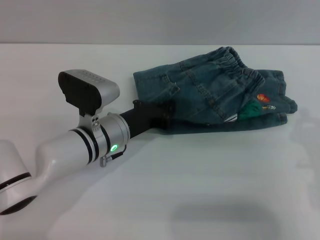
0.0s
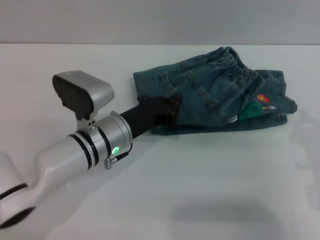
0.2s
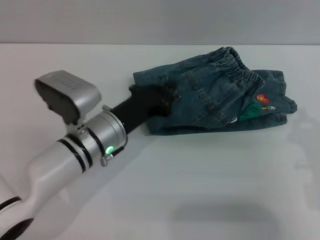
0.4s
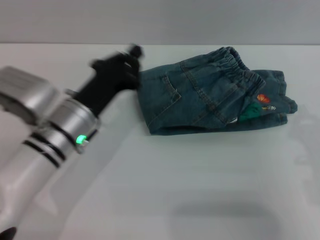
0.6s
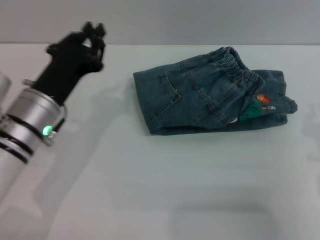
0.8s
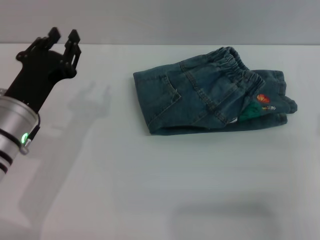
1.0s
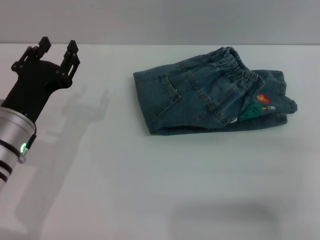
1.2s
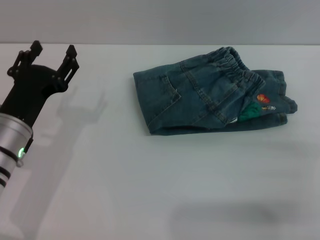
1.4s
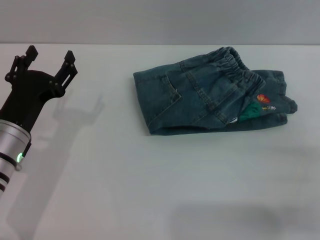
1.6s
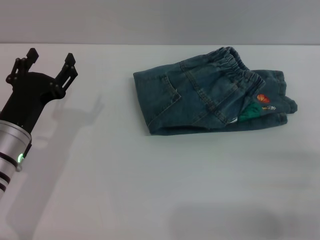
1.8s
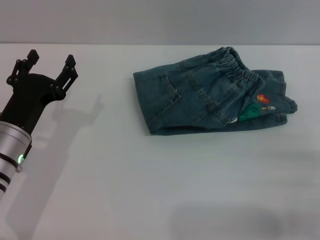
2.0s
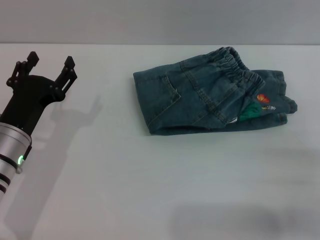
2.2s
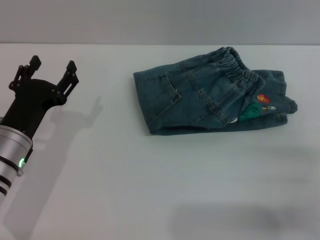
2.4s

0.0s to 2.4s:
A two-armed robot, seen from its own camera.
0.0s to 1.2s: The left gripper heads to the left, backward and upward, covering approximately 15 cm, and opens. Meanwhile the right gripper opens up.
1.2s to 2.4s: The right gripper opens. The left gripper opens up.

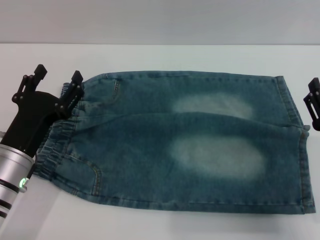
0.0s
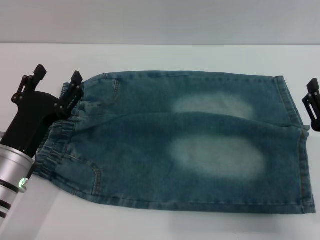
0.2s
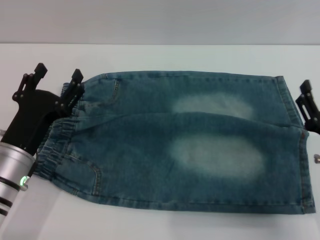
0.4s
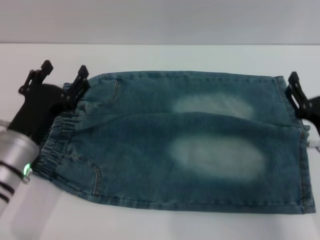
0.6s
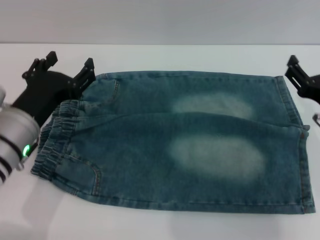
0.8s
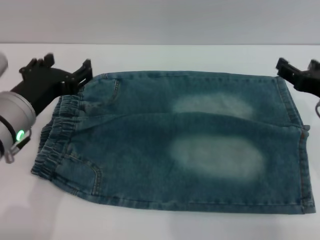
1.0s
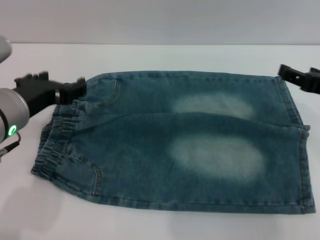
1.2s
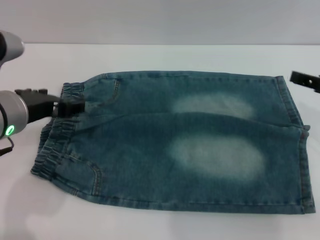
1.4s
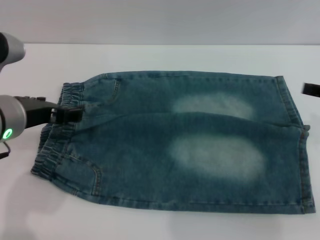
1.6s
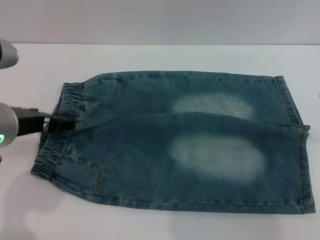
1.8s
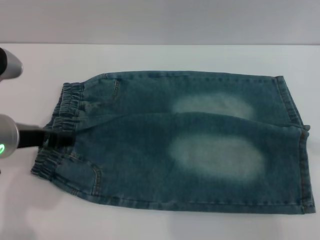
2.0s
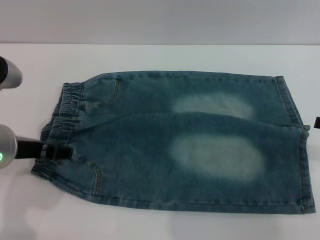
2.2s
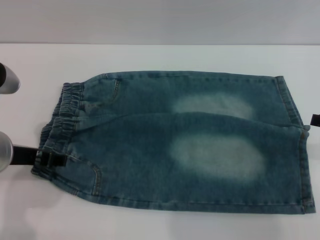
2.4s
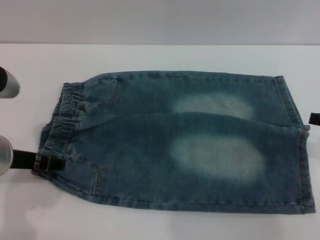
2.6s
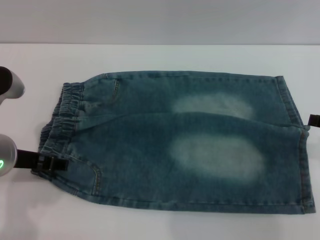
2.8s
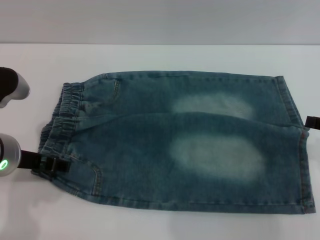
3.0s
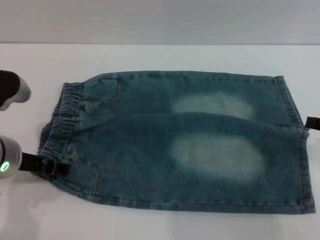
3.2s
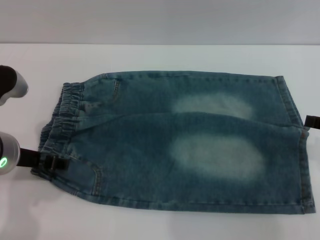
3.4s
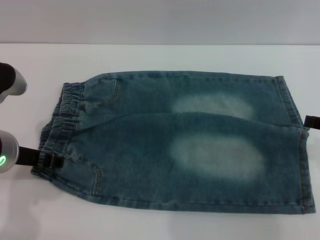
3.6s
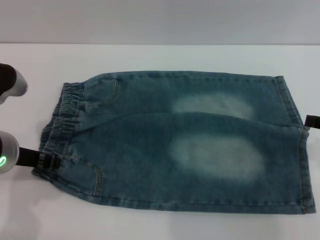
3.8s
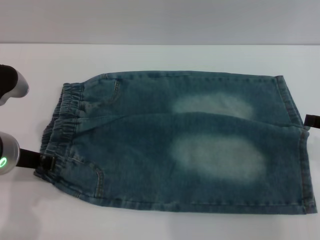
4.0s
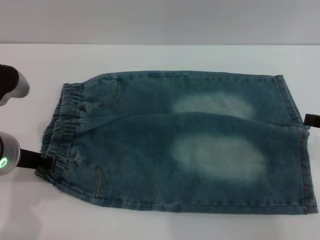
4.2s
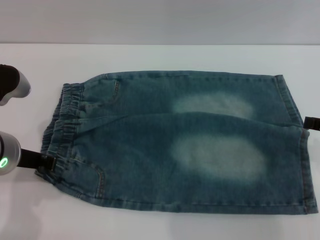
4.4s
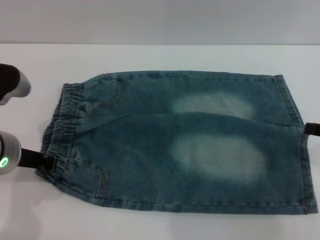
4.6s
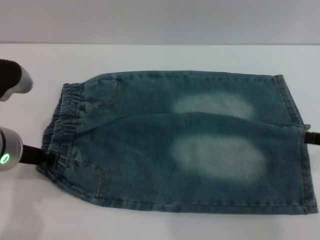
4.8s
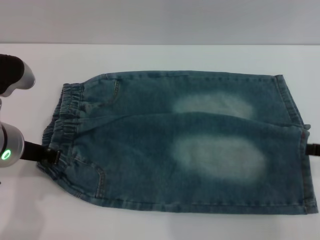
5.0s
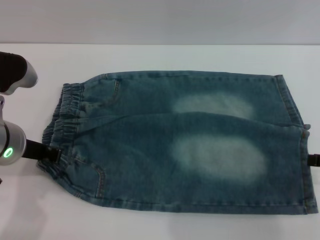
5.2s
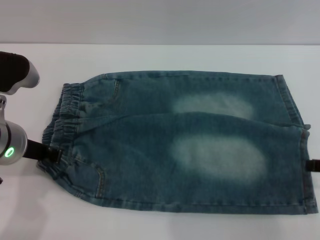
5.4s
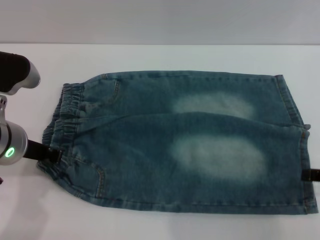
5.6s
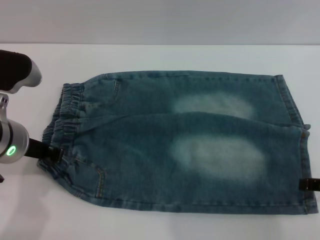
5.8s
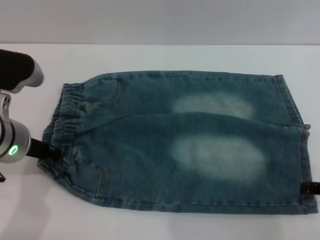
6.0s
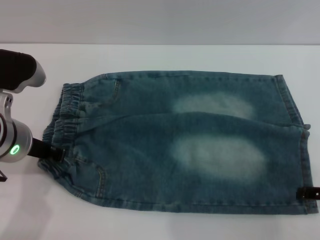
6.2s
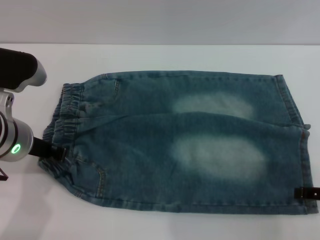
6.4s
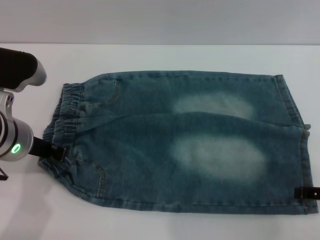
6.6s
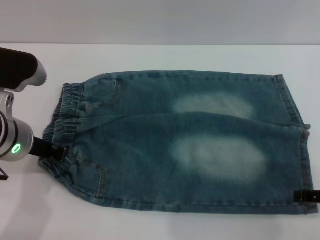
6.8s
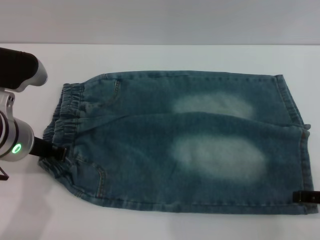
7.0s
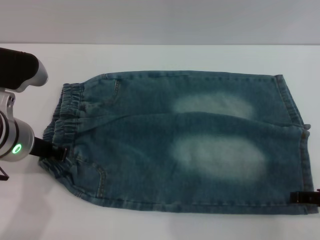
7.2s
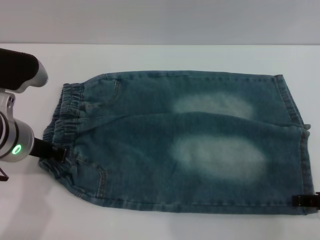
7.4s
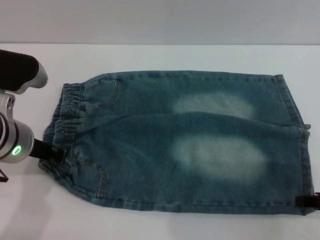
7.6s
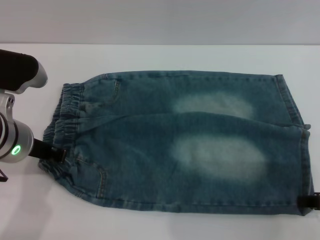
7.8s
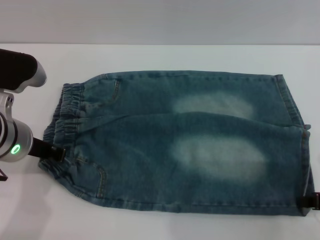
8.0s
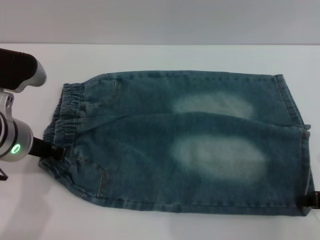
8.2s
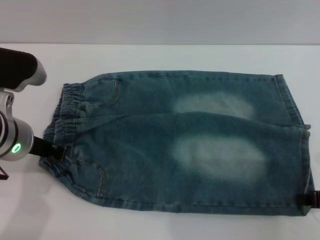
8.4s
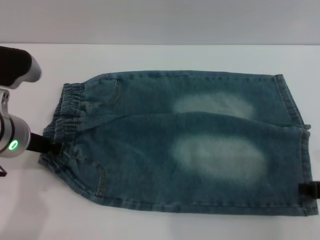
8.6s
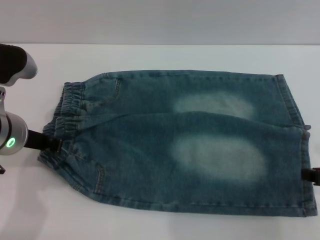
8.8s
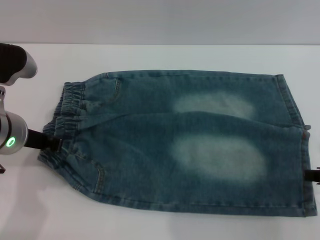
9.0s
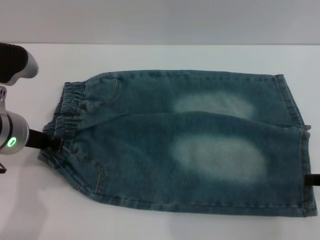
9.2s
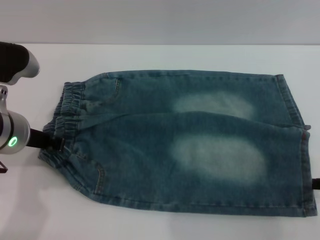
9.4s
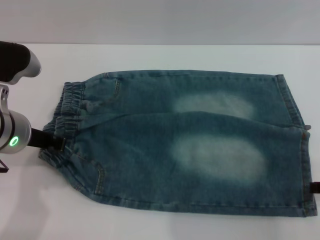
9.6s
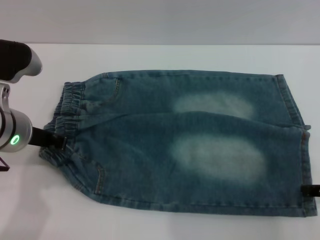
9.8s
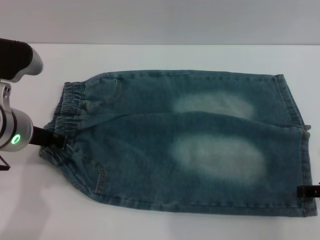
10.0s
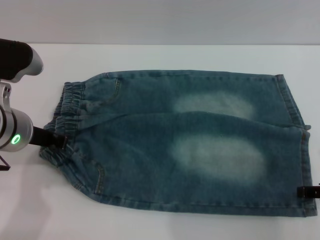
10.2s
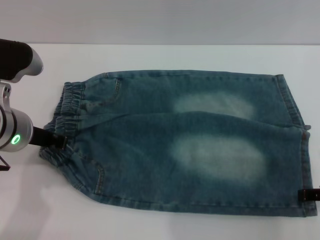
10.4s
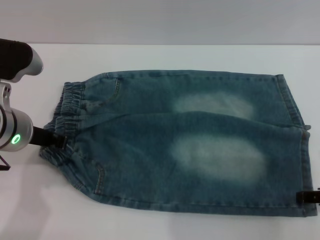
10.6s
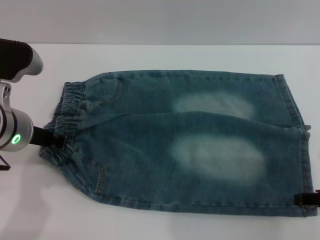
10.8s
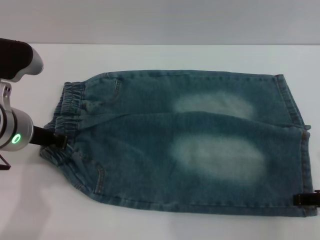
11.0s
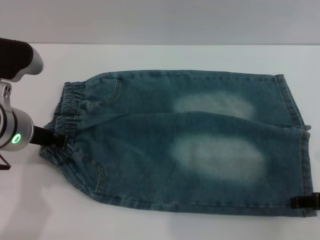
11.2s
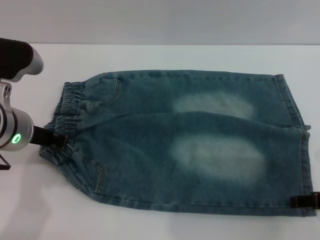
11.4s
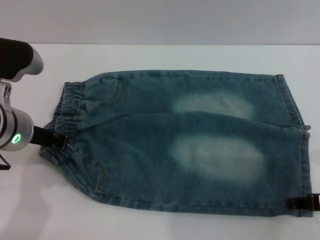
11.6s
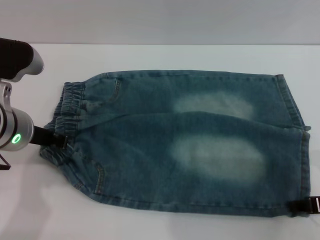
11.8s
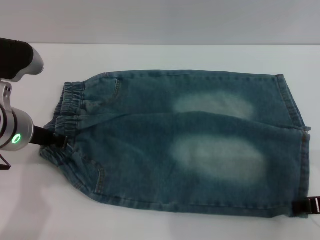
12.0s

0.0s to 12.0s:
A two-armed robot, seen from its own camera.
0.0s to 1.6s: The right gripper heads upward, forward and to the right, covering roughly 15 cm, while the left gripper shifts about 10 cm upward.
3.0s to 4.4s: The left gripper closes up.
4.4s to 7.6s: The grippers make only small movements.
7.6s to 9.0s: The right gripper closes up.
10.4s to 12.0s: The grippers move only a little.

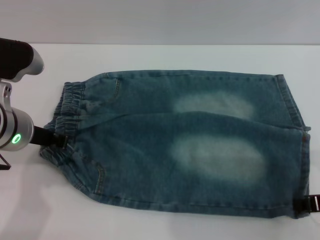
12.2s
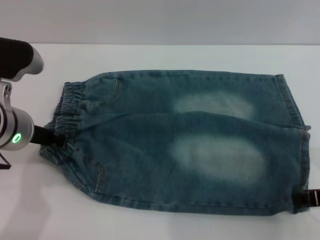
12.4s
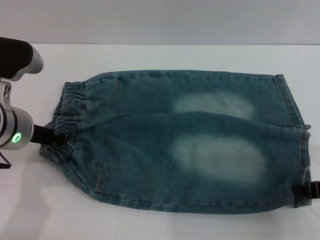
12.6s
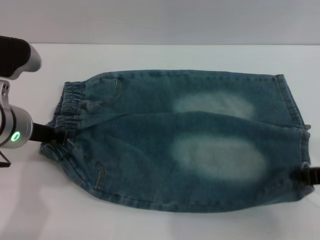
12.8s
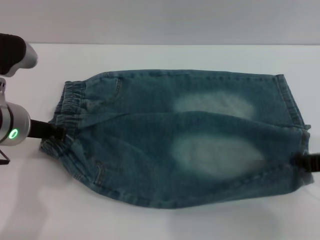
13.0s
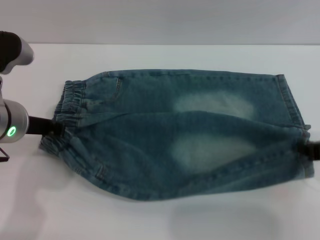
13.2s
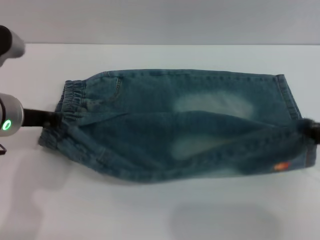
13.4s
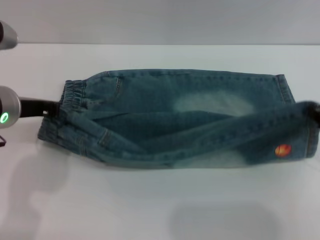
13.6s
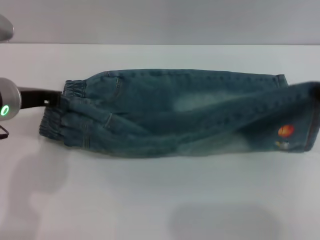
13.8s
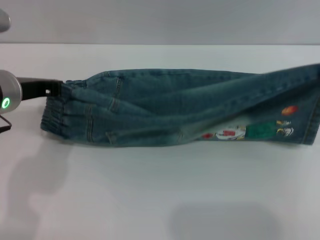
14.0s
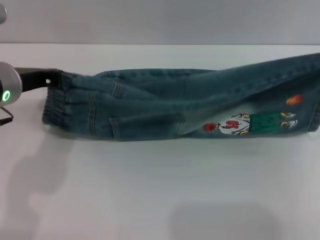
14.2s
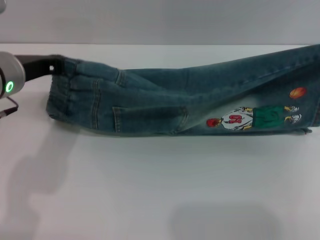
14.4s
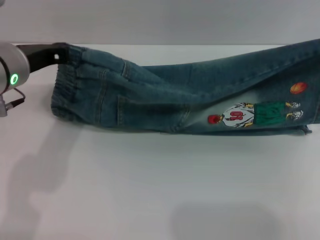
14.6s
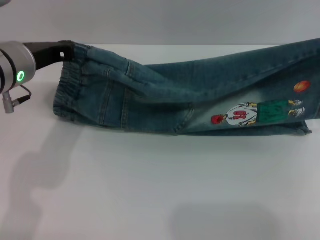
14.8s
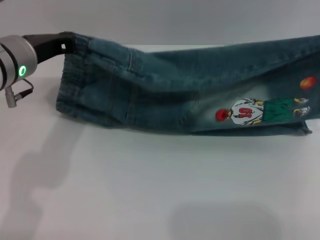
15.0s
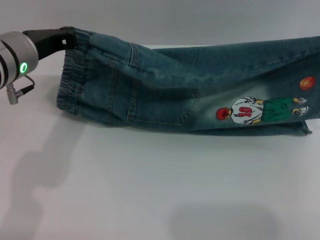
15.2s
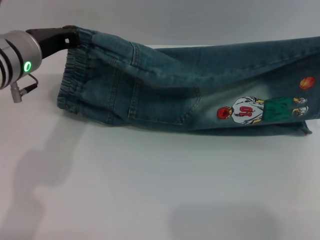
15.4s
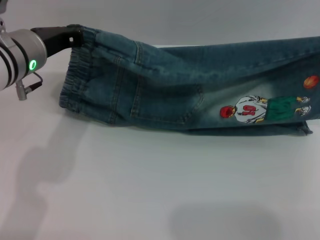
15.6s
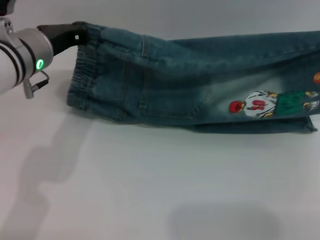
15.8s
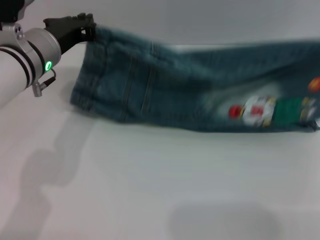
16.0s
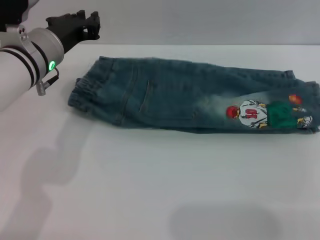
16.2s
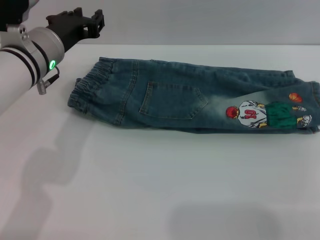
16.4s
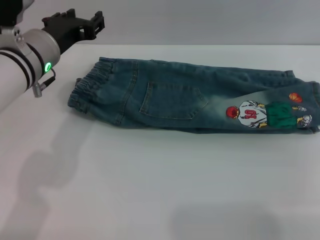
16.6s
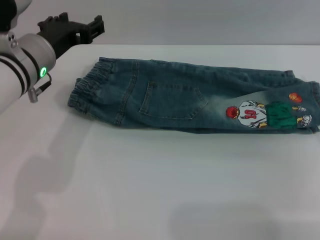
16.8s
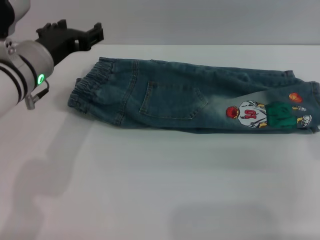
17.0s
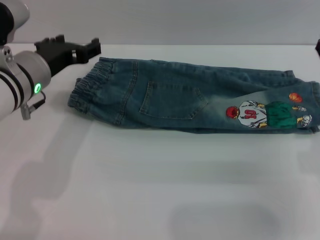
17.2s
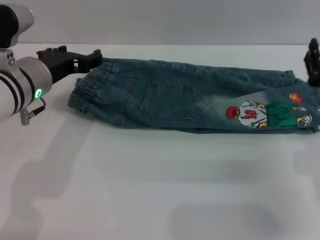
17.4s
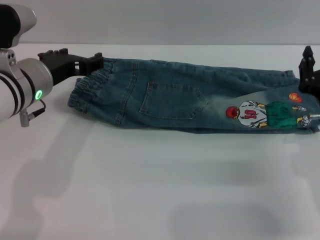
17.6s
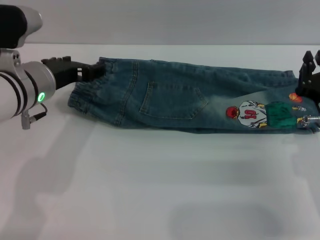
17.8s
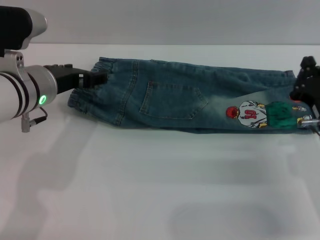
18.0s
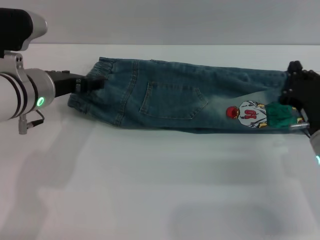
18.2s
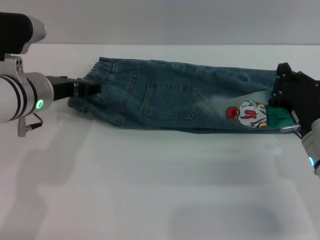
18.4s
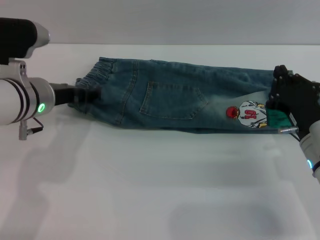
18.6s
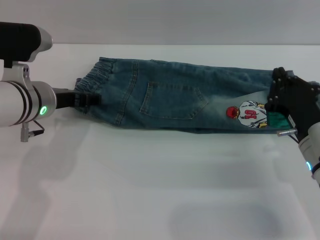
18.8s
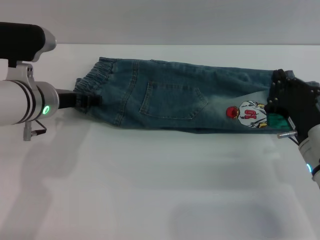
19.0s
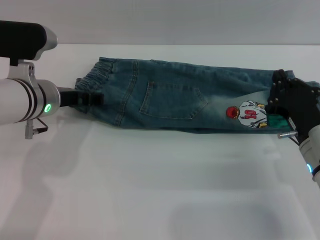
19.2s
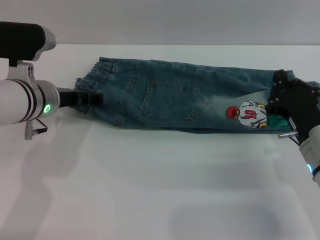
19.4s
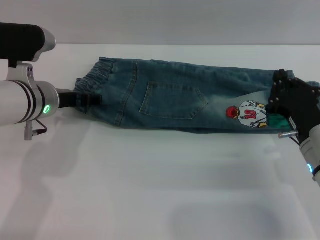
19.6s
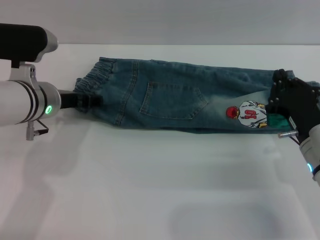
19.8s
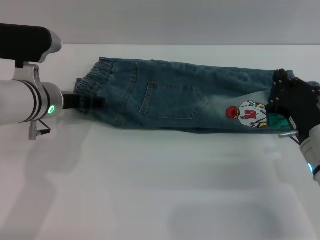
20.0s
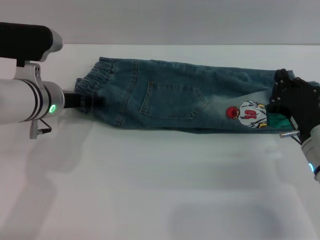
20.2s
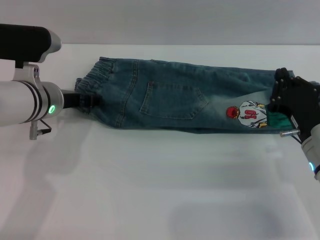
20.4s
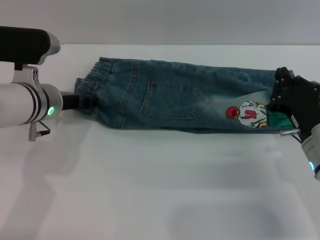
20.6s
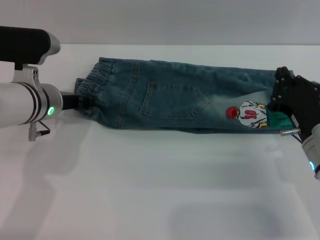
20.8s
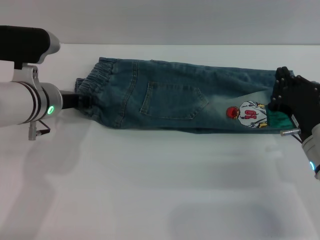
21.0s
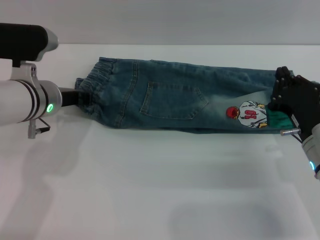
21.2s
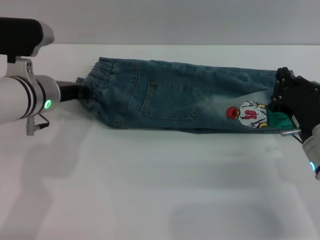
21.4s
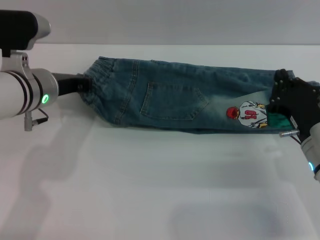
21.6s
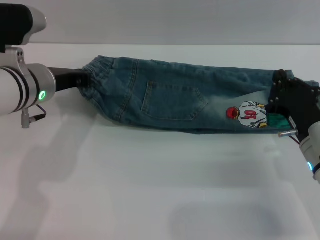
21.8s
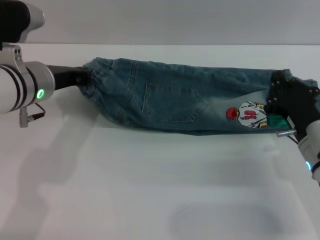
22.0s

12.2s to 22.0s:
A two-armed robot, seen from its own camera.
Step, 12.2s to 18.8s: Fold the bottom of the pants upward with both grippers.
12.2s to 13.6s: The right gripper is displaced upward by some 5 cm.
15.0s to 16.4s: The right gripper moves approximately 5 cm, and opens.
16.4s to 17.8s: The right gripper goes some 10 cm downward and to the left, and opens, then closes once more, while the left gripper opens up.
17.8s to 19.2s: The right gripper closes up.
19.2s to 20.6s: The grippers move only a little.
20.6s to 22.0s: The left gripper closes up.
